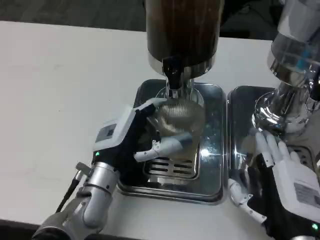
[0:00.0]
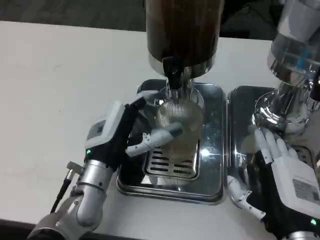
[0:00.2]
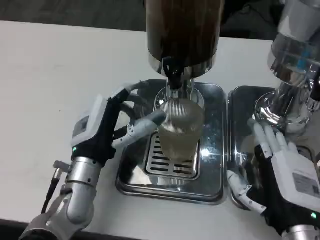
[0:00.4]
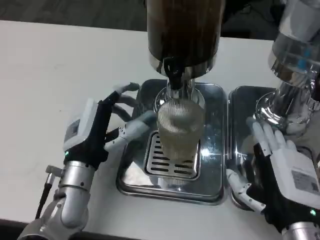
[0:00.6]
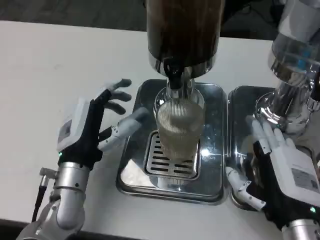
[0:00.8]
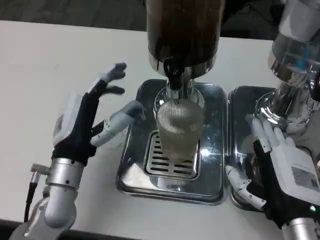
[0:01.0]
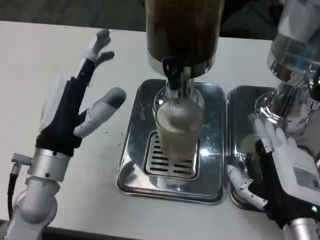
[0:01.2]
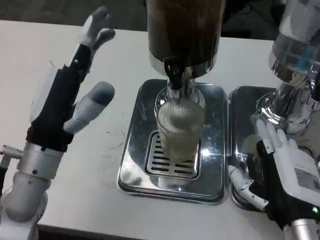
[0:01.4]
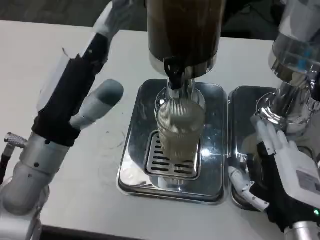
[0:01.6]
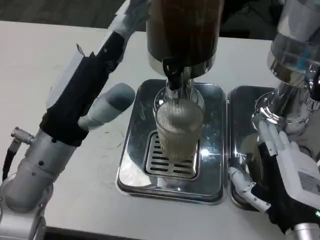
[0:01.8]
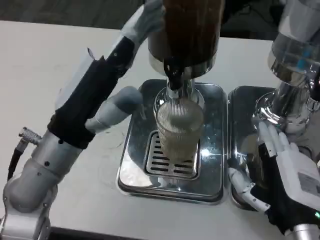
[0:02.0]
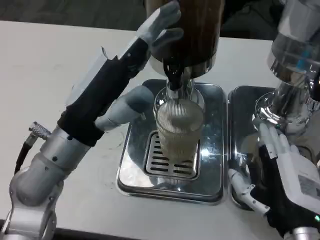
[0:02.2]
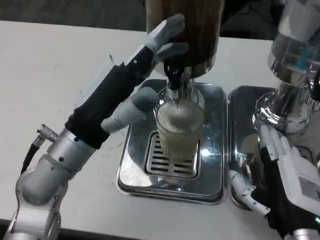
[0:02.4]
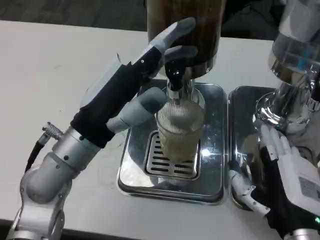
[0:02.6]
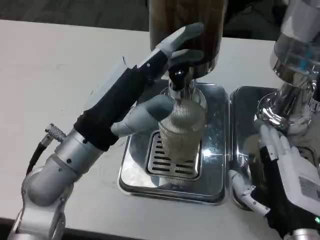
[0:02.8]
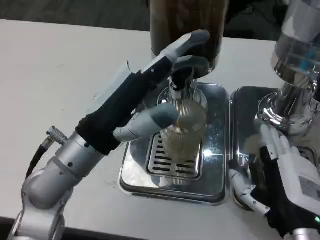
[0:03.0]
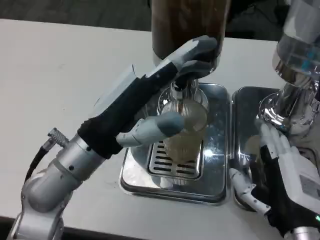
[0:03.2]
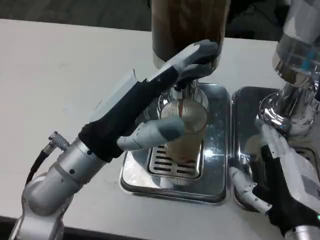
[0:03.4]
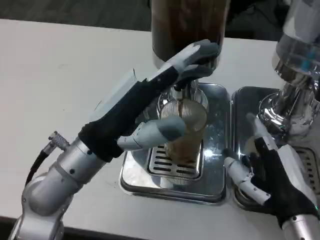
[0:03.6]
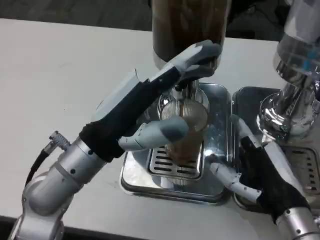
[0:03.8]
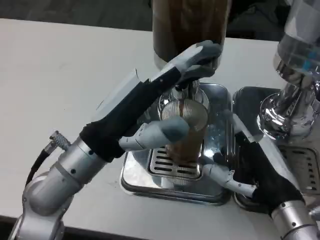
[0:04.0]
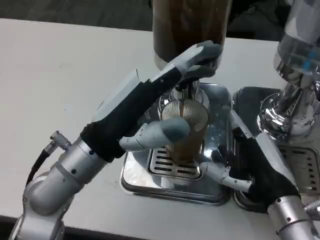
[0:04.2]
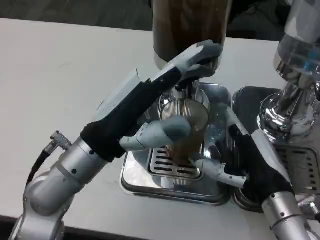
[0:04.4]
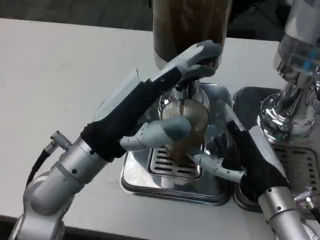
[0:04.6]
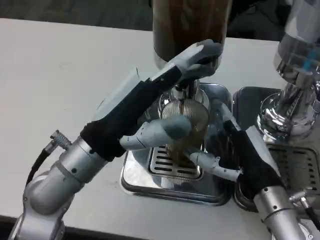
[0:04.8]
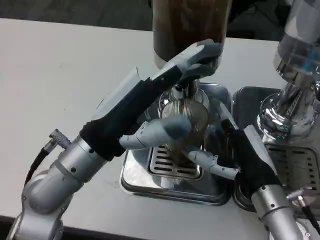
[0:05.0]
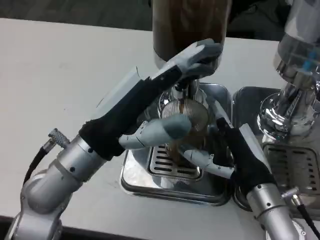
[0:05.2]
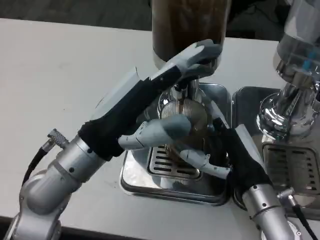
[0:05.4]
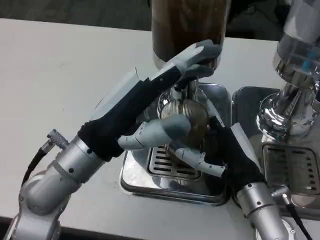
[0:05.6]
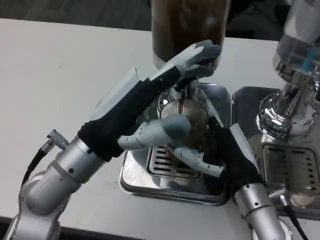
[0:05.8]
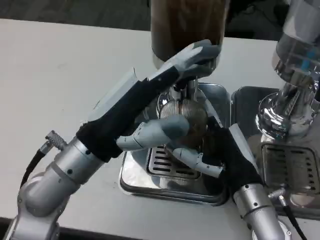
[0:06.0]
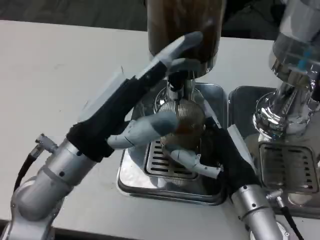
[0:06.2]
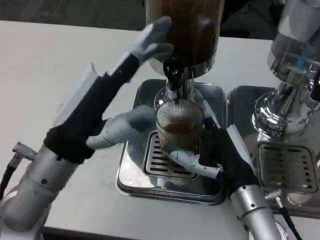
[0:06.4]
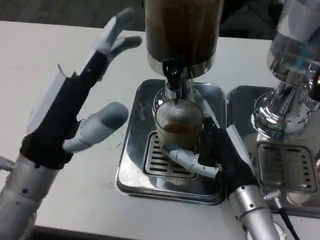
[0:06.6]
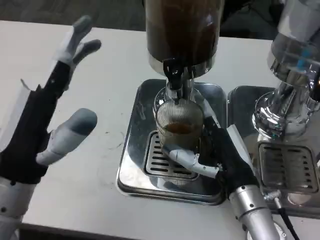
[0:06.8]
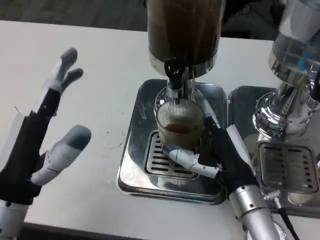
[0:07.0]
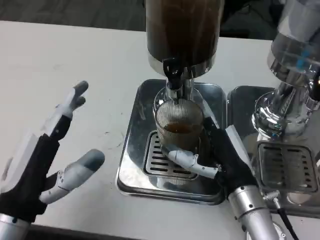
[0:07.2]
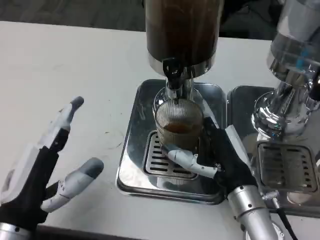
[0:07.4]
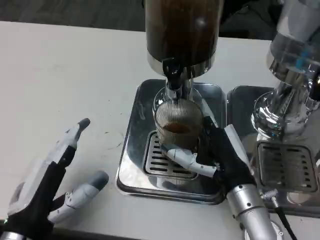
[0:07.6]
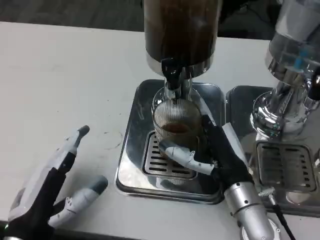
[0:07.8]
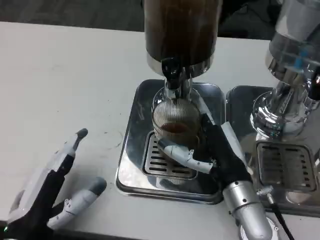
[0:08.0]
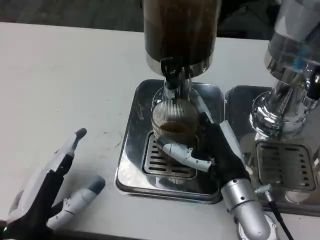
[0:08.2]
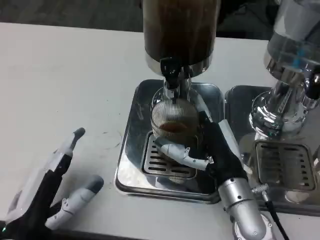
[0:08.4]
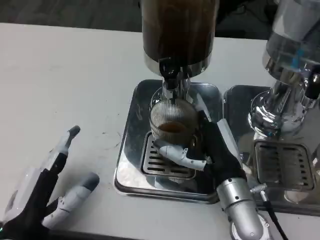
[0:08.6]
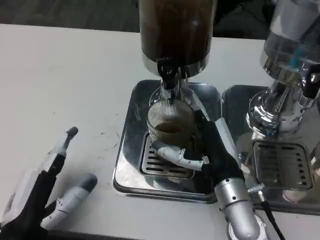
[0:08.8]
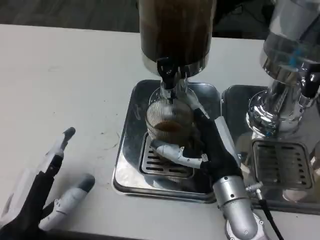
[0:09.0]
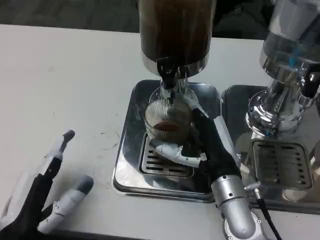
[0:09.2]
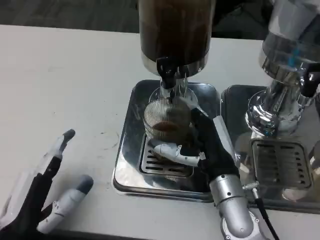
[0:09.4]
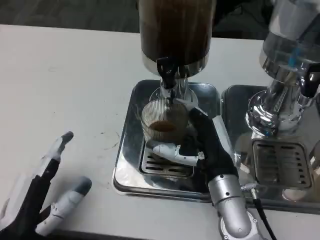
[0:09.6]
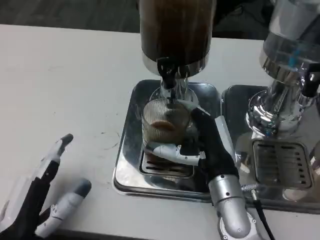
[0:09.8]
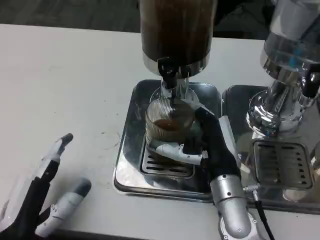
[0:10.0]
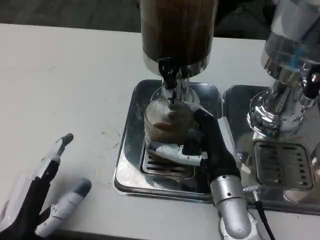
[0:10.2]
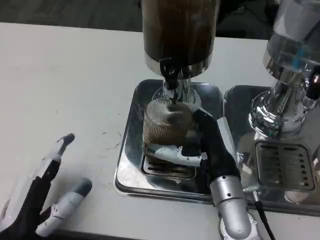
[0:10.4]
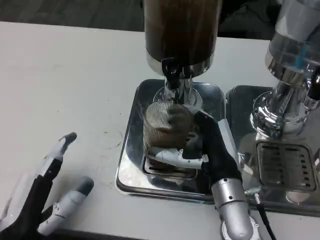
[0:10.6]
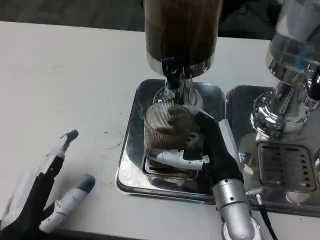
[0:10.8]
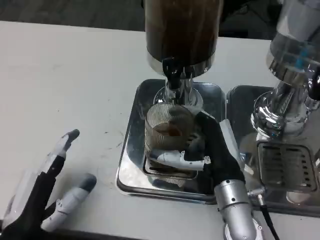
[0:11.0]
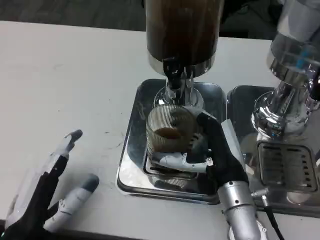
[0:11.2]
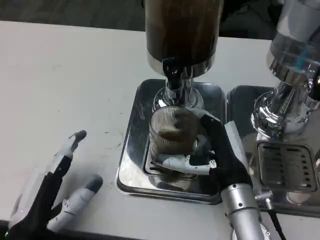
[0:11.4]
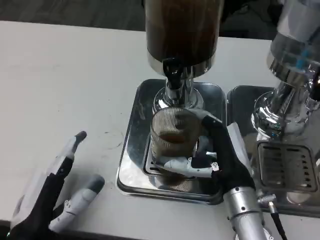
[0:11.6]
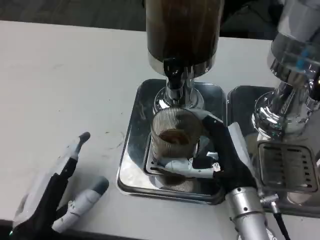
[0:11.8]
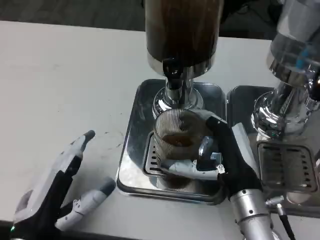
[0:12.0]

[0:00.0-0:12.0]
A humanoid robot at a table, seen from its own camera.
Task of the whole recording: Grasp the cup under the faucet to collect the drink, then remove the cup.
0:00.0 to 0:01.6: The left hand is displaced upward and to the left by about 10 cm.
0:03.0 to 0:04.4: The right hand goes approximately 5 cm forward.
0:06.0 to 0:07.6: The left hand goes some 15 cm downward, backward and to the left.
0:09.0 to 0:10.4: The hands stay close to where they were, moving slightly.

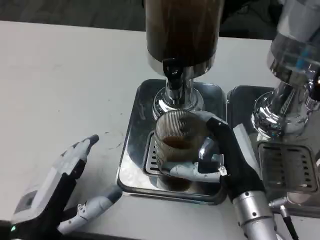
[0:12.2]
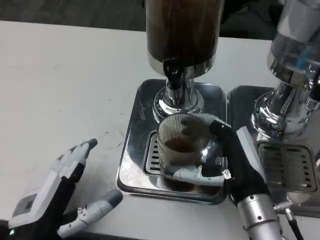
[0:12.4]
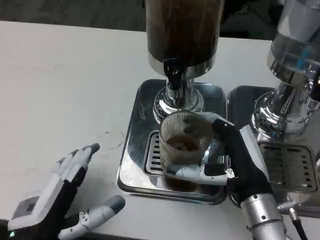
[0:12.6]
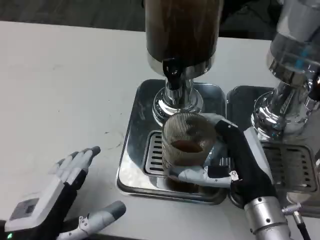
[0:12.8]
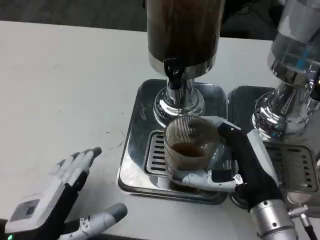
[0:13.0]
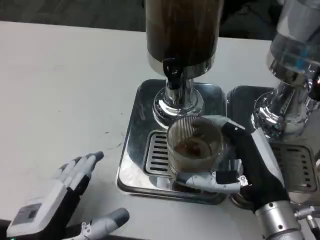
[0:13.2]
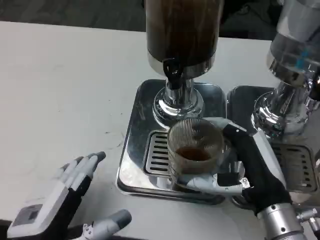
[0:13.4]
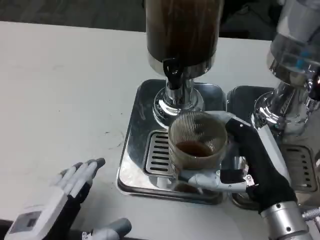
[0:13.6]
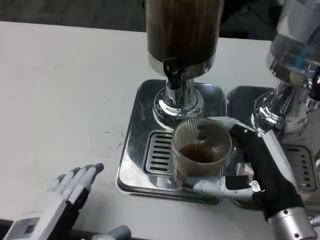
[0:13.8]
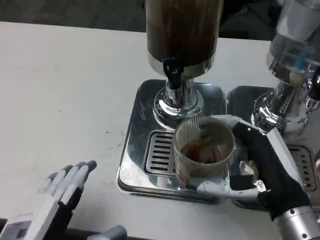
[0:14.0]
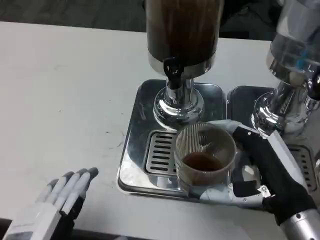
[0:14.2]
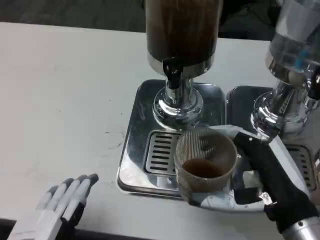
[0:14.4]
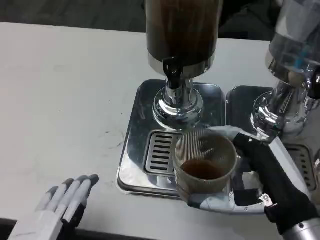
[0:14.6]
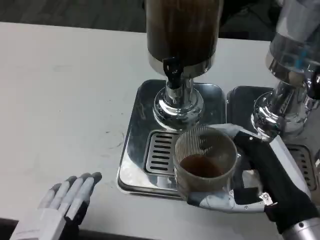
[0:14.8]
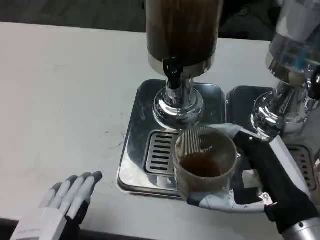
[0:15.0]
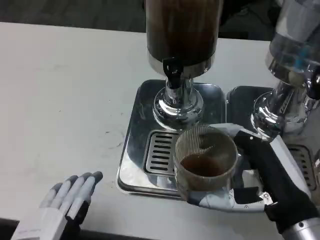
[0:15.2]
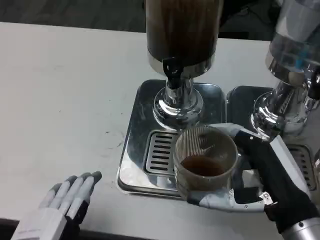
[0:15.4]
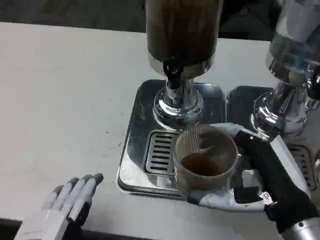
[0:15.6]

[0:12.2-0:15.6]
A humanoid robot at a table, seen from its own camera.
Task of the whole recording: Grasp the cup under the faucet to collect the drink, then remove the cup.
0:12.2 to 0:13.8: The right hand ends up about 5 cm from where it was. The left hand ends up some 5 cm from where it was.
0:13.8 to 0:15.6: The hands stay close to where they were, moving slightly.

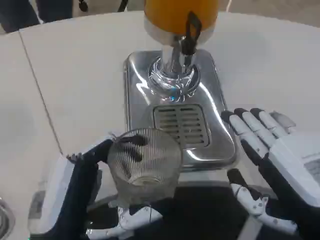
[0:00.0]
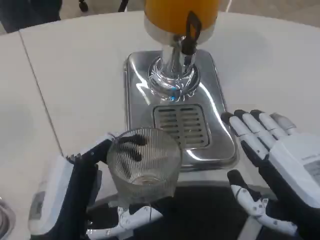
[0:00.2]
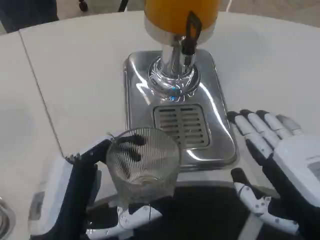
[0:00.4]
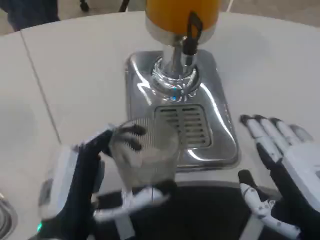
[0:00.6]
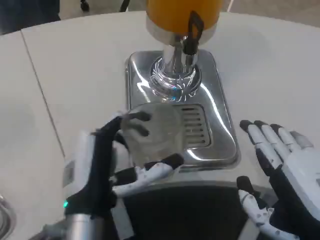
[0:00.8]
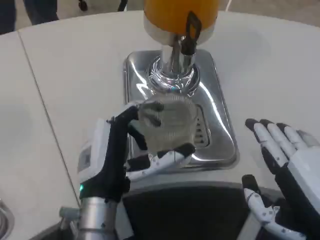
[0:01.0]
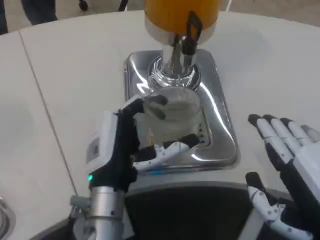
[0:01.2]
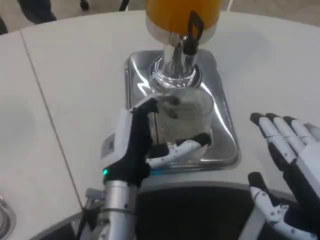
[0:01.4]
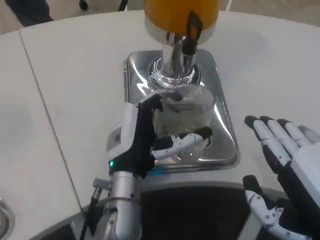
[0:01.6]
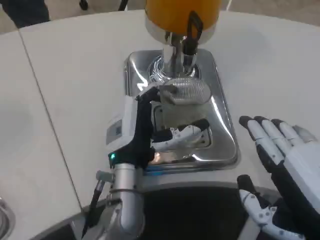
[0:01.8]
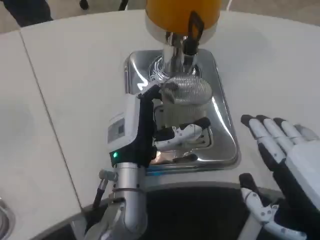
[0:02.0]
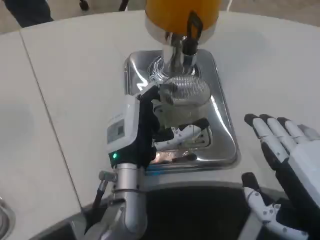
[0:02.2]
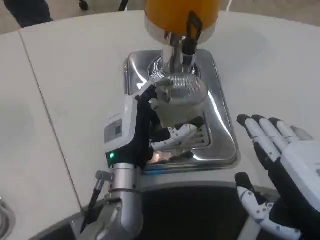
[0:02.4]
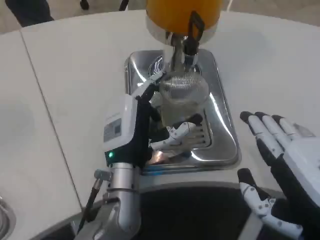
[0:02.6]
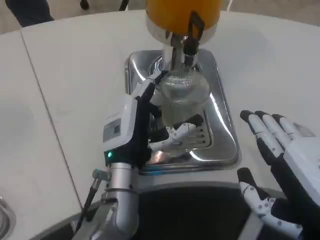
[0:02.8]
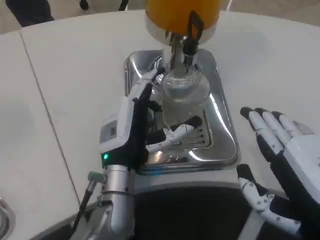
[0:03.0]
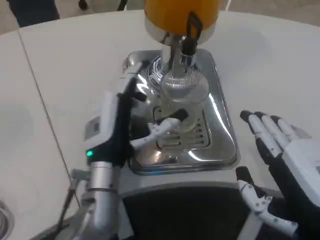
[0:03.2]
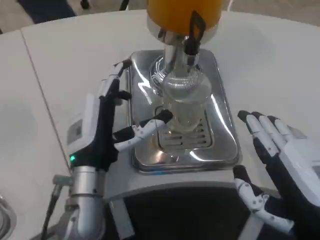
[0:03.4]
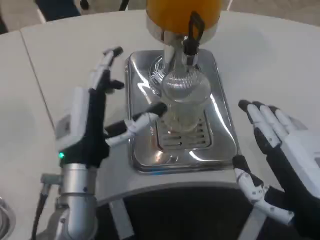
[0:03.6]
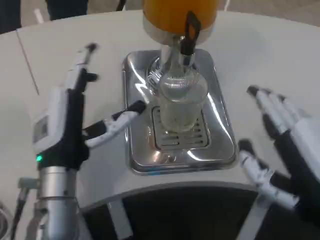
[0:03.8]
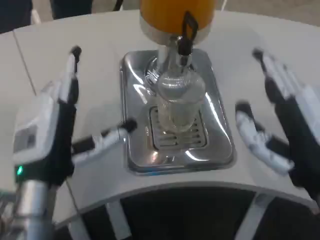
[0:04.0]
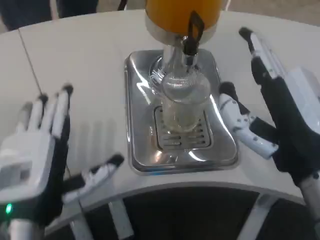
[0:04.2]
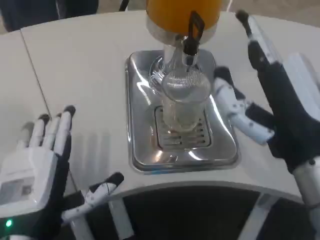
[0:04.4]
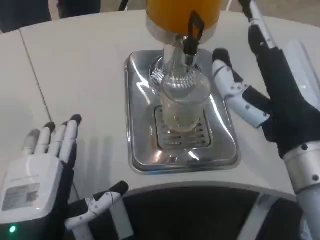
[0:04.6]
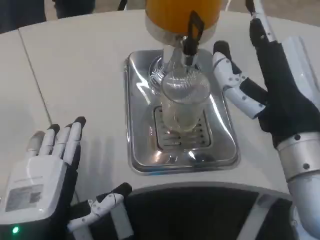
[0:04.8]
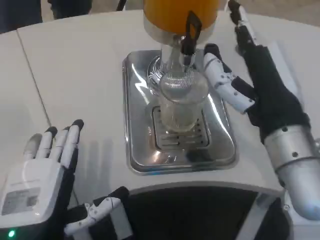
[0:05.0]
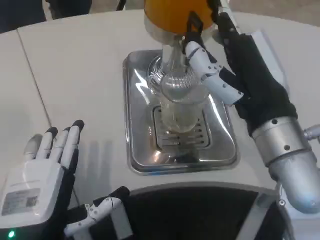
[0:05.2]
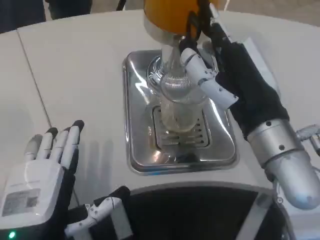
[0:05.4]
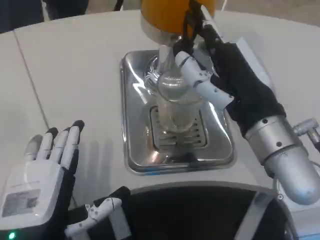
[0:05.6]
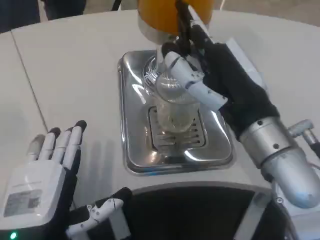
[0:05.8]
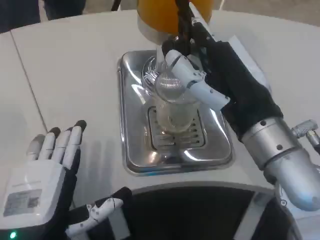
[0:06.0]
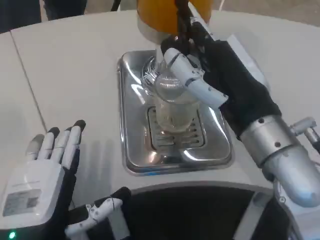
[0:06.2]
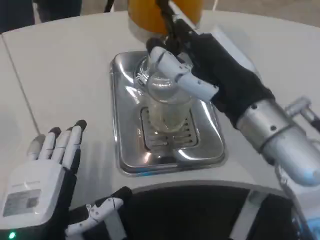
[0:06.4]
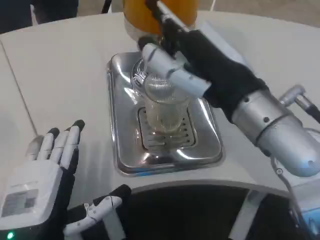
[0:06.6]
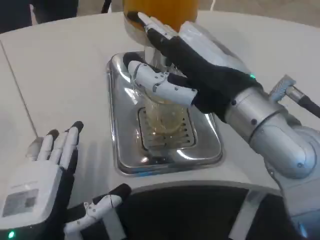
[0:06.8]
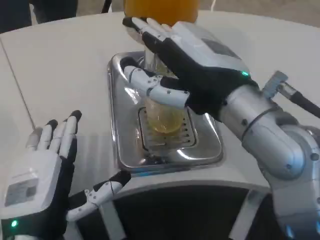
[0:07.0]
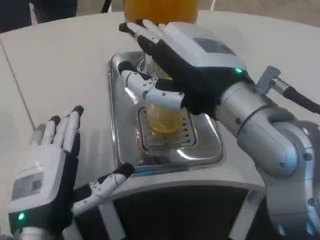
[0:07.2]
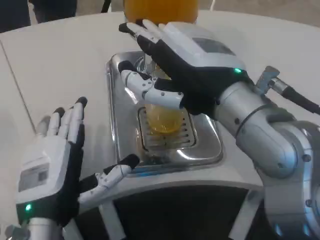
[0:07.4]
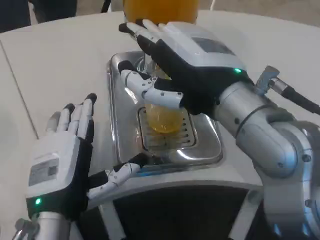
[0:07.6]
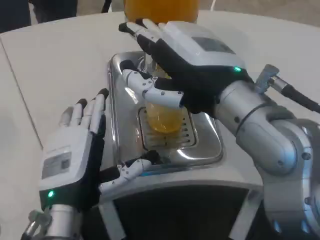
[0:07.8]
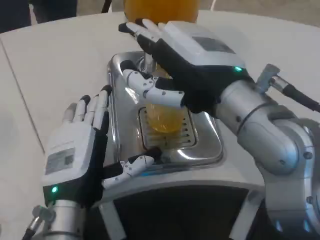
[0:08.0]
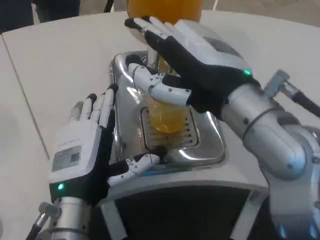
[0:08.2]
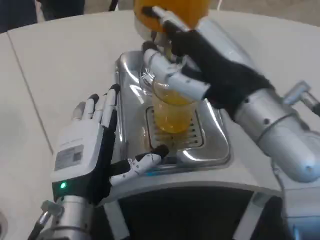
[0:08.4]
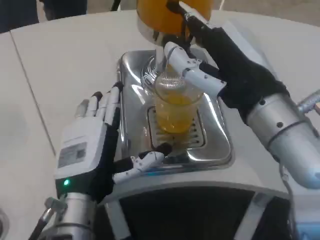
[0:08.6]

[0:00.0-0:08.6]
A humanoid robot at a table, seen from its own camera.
Task of the whole recording: Grasp the cup under the faucet to collect the drink, then remove the cup.
0:00.0 to 0:01.4: The left hand heads forward and to the right, covering about 15 cm.
0:01.4 to 0:02.8: The hands move only a little.
0:02.8 to 0:04.4: The left hand shifts about 15 cm backward and to the left. The right hand travels forward by approximately 5 cm.
0:04.4 to 0:05.8: The right hand goes roughly 5 cm forward.
0:05.8 to 0:07.2: The right hand goes some 5 cm upward.
0:07.2 to 0:08.6: The left hand changes place by about 5 cm.
